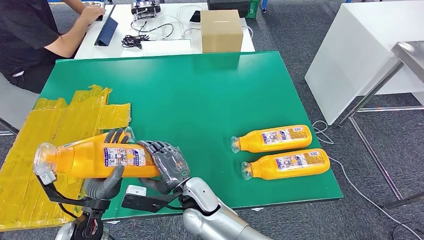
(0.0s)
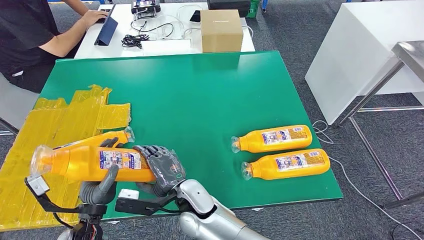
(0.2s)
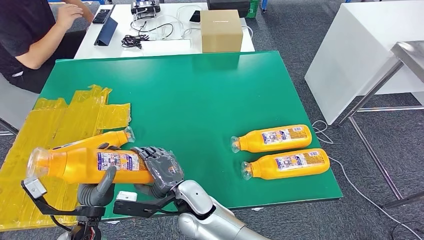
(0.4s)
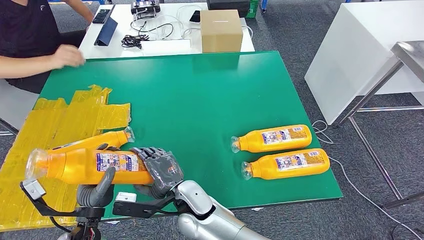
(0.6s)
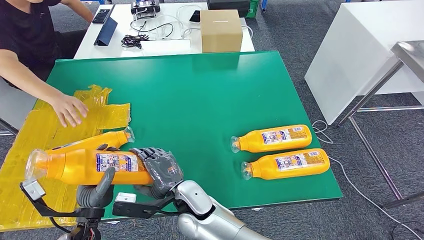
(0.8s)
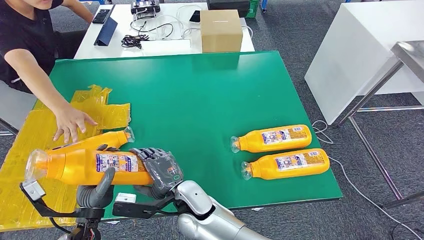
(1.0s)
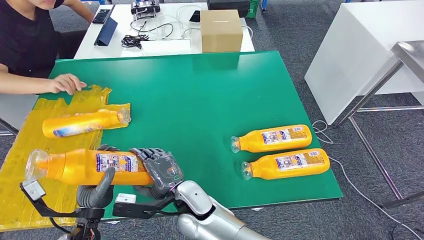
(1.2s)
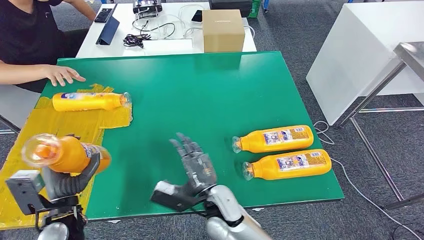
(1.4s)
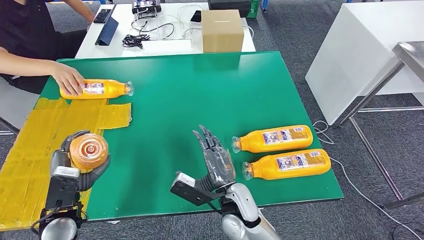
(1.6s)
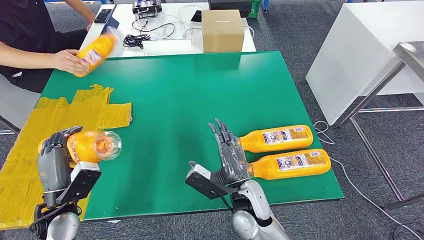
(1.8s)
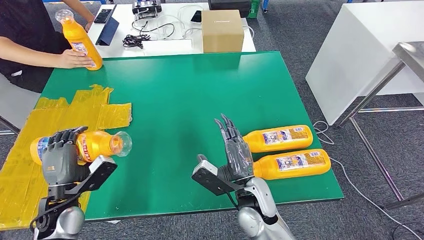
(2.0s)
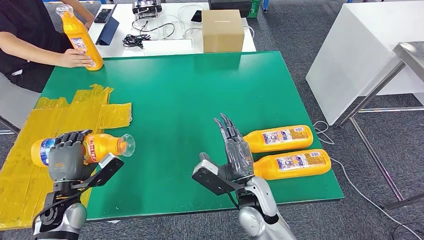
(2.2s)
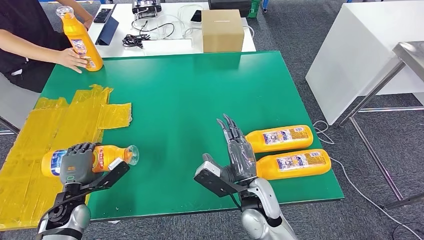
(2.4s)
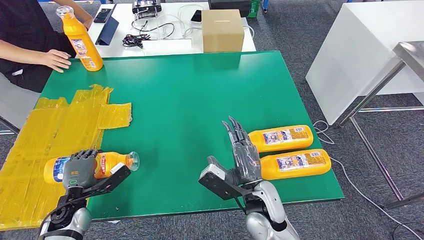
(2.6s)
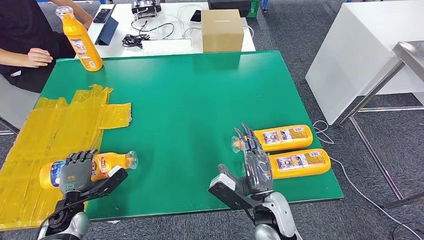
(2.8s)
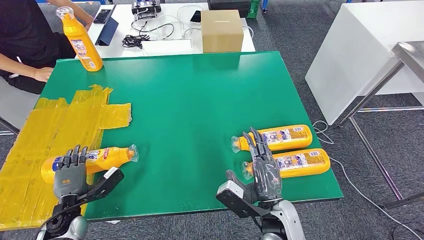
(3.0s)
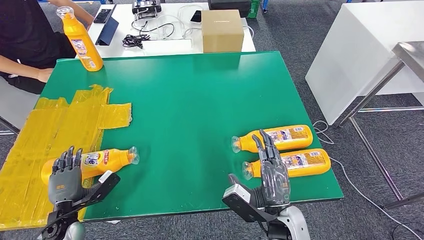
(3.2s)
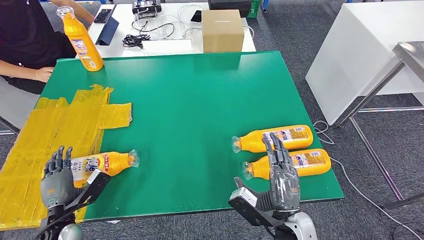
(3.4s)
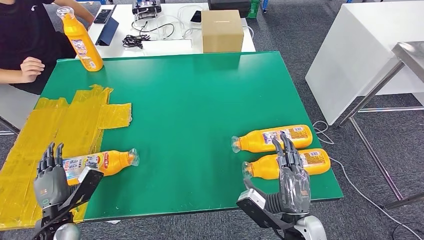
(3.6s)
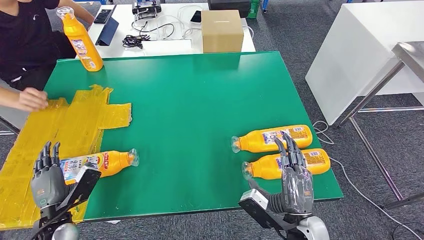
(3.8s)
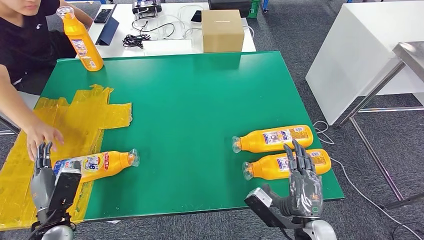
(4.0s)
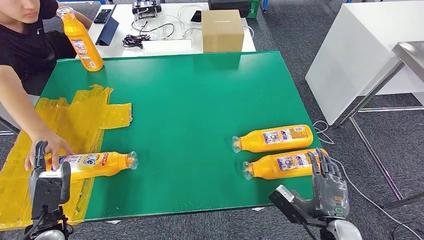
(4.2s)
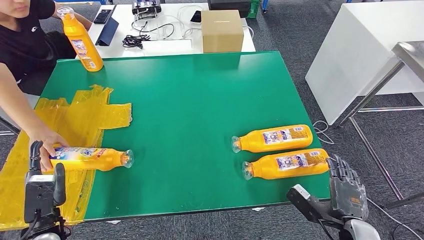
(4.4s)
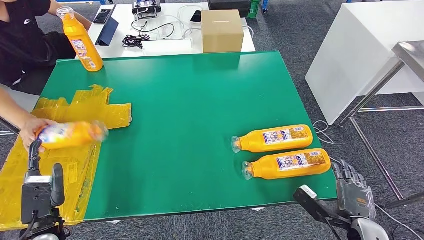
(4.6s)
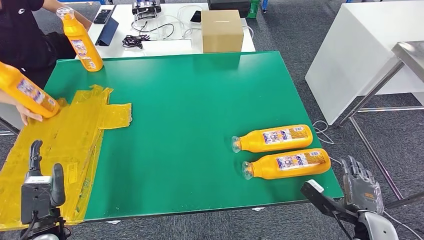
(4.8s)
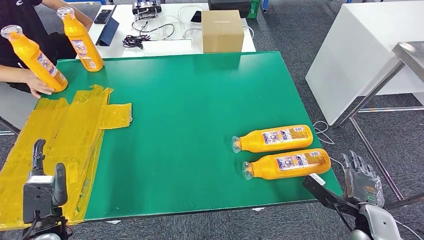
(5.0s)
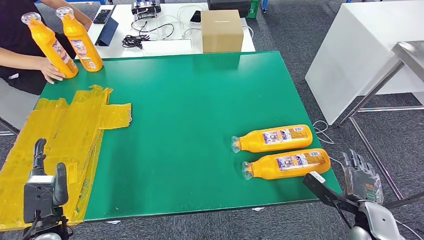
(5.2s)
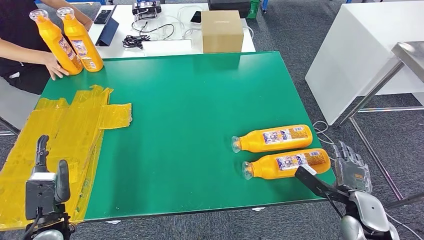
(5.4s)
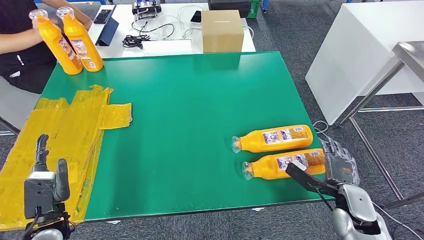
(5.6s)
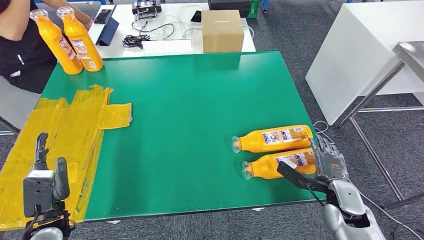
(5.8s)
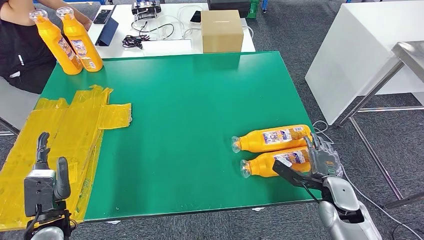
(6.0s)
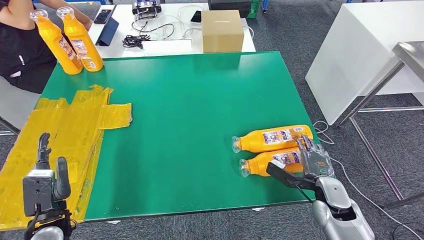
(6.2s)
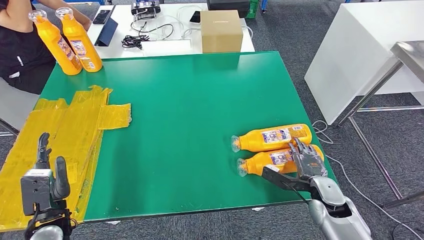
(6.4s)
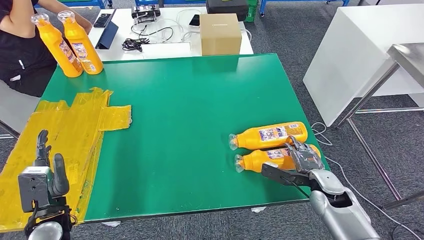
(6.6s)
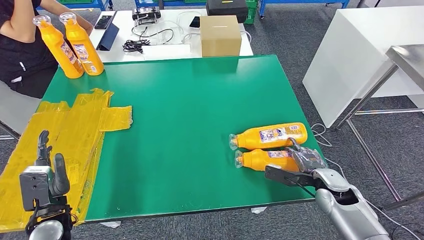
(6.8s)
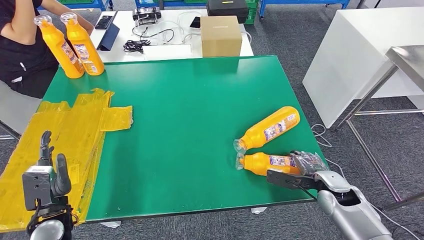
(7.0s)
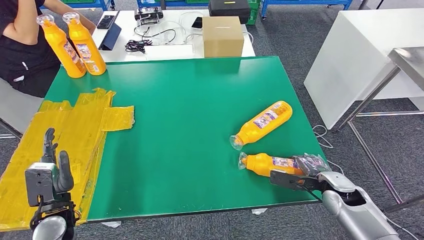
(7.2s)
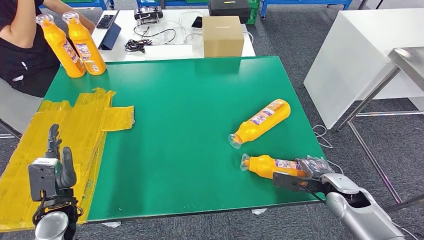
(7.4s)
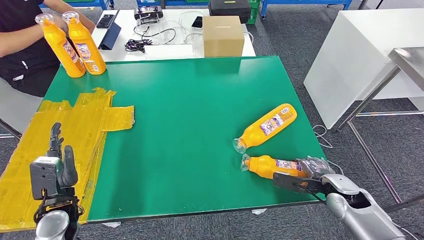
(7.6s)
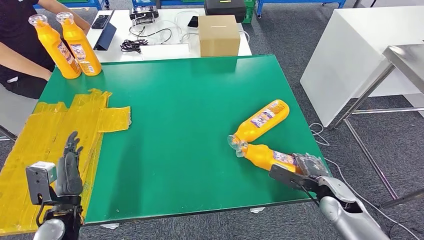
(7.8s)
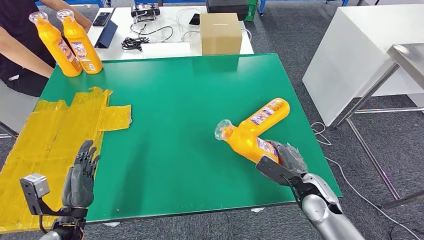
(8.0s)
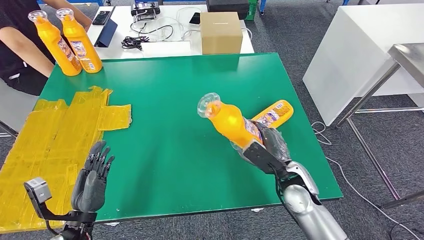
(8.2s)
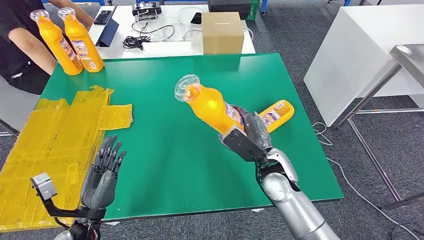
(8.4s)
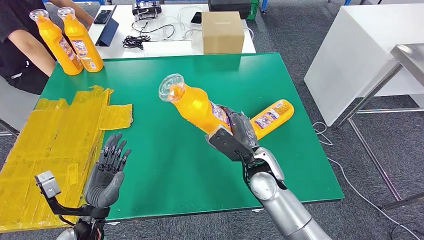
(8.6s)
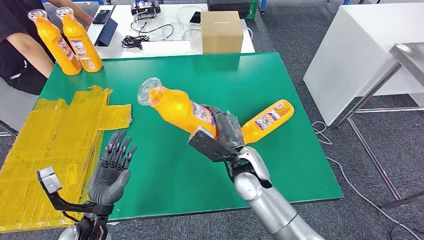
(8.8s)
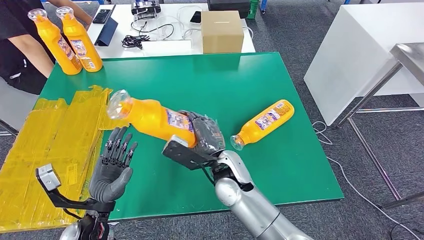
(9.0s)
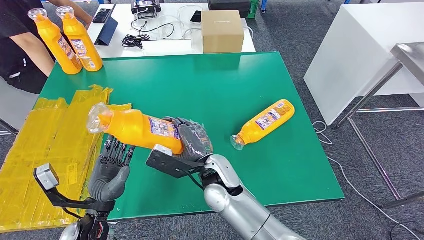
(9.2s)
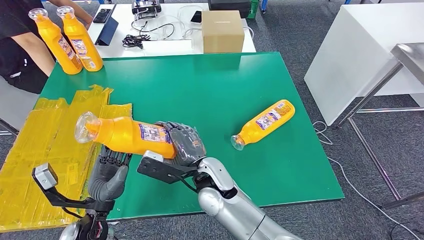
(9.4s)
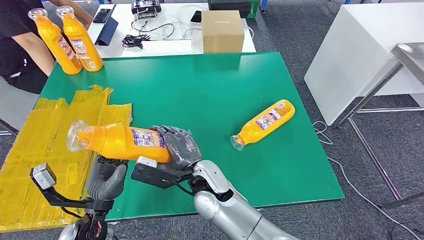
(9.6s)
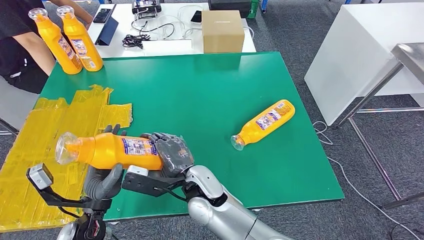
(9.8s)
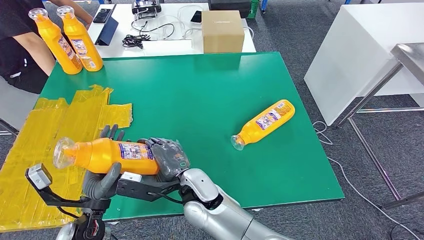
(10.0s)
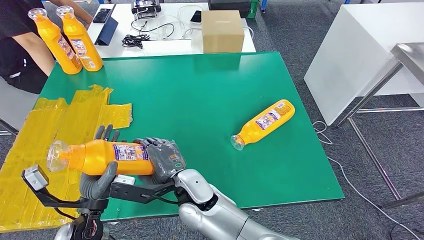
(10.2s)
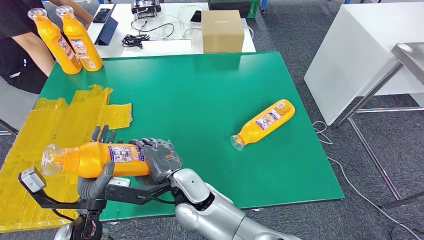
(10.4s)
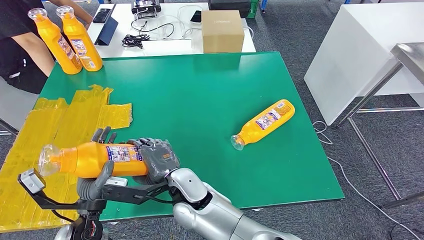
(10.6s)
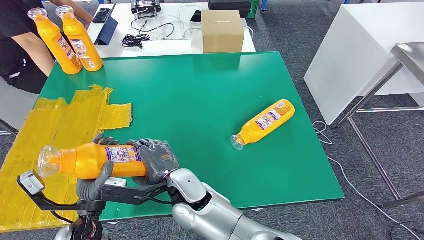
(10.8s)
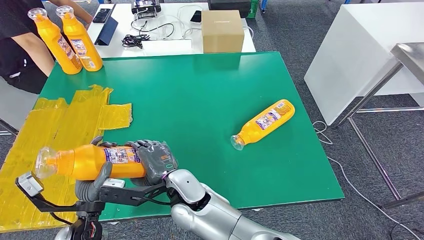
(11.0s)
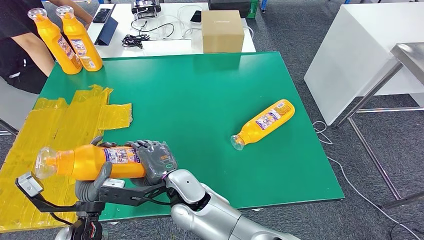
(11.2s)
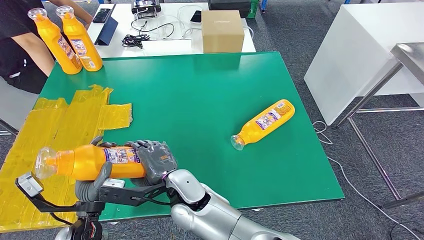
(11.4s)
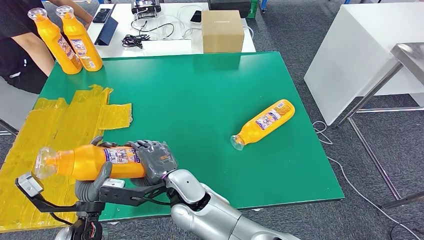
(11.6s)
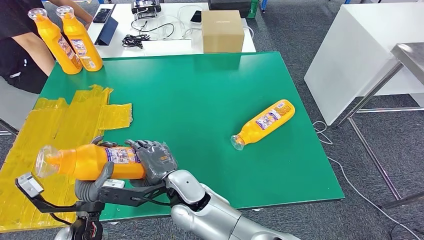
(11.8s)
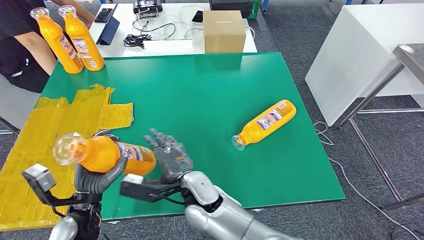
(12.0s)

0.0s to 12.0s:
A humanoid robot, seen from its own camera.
Step, 0.0s to 2.4s: Flip the bottle to face forward.
Step, 3.2s to 8.8s: Pick up the bottle from the table.
1.6s to 3.0s: The left hand heads downward, covering approximately 10 cm. The right hand is displaced to the right and backward by roughly 10 cm.
3.0s to 4.4s: The left hand travels upward and backward by roughly 10 cm. Meanwhile the right hand goes roughly 15 cm to the right.
4.4s to 6.0s: The right hand goes about 10 cm forward.
9.0s to 10.4s: The right hand shifts approximately 10 cm to the left.

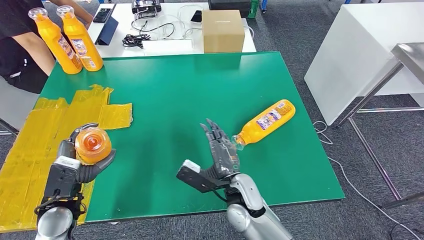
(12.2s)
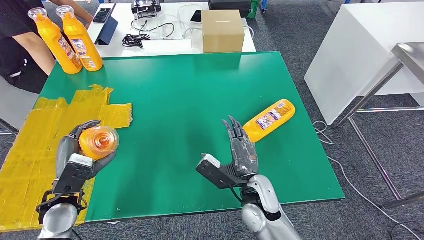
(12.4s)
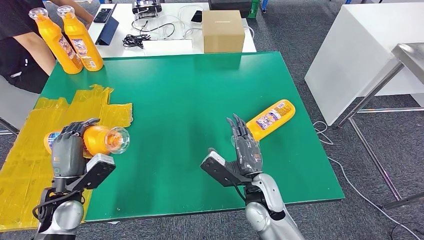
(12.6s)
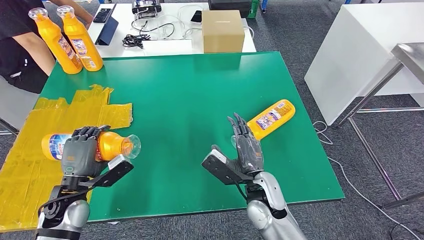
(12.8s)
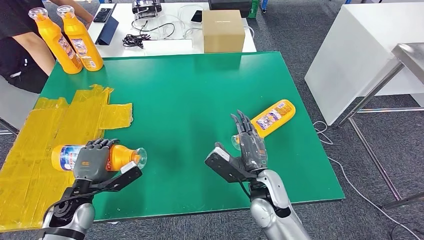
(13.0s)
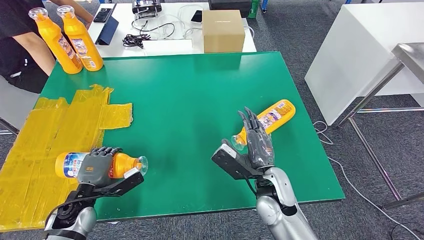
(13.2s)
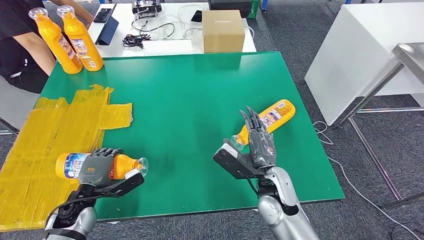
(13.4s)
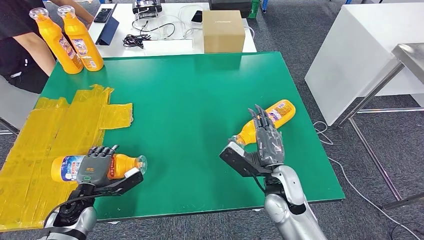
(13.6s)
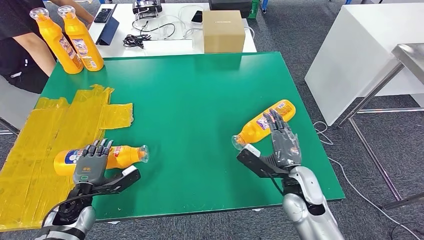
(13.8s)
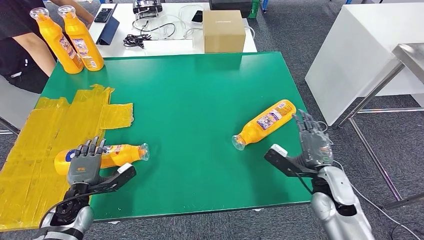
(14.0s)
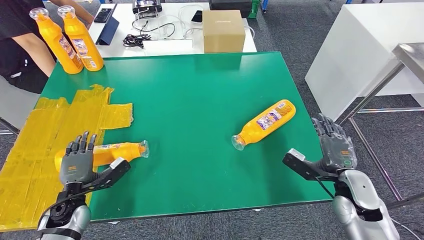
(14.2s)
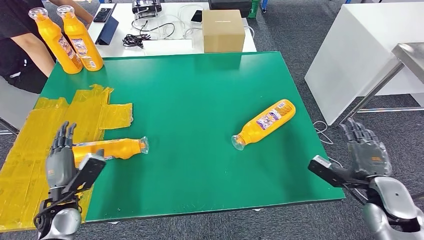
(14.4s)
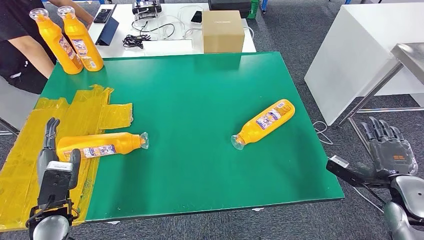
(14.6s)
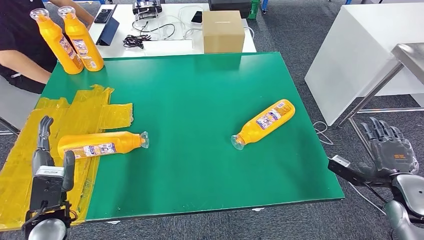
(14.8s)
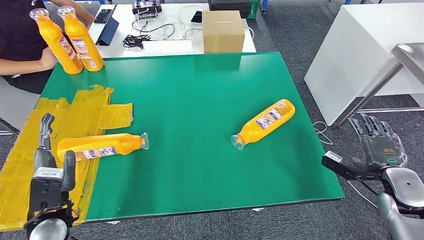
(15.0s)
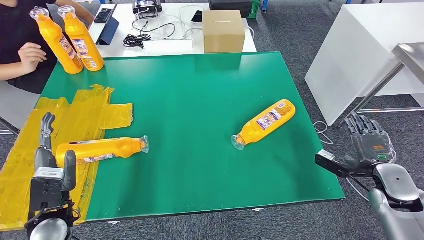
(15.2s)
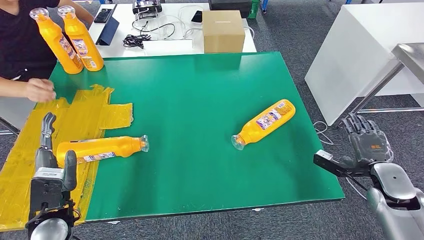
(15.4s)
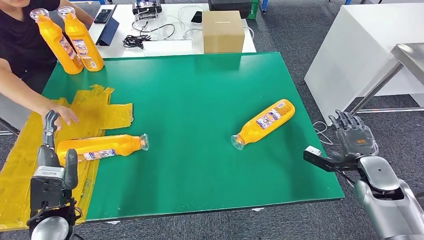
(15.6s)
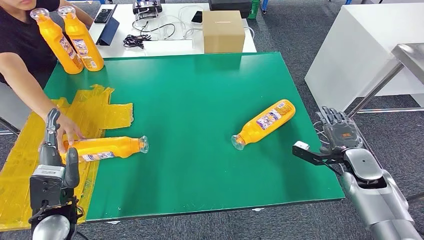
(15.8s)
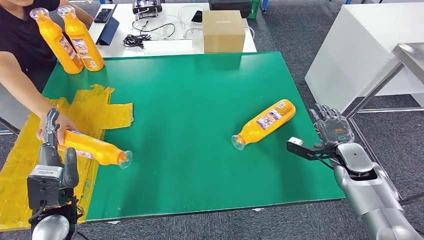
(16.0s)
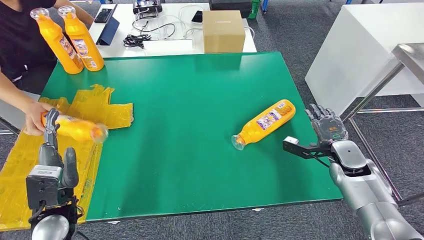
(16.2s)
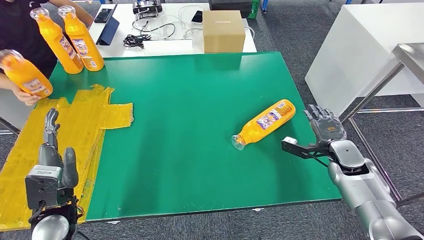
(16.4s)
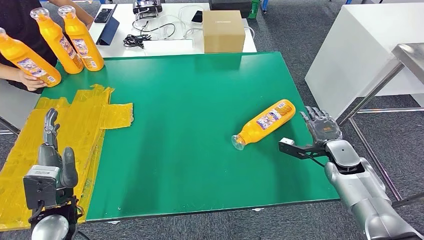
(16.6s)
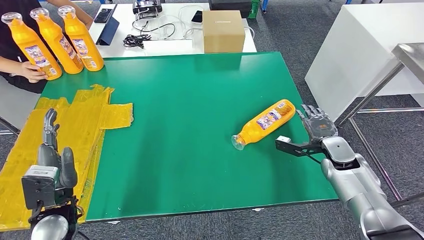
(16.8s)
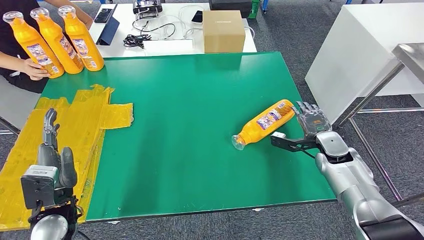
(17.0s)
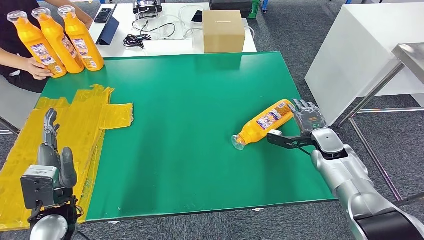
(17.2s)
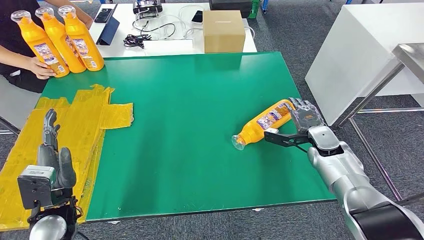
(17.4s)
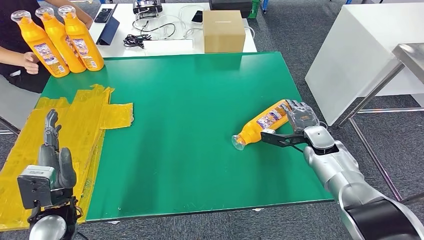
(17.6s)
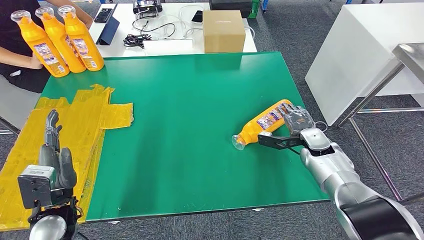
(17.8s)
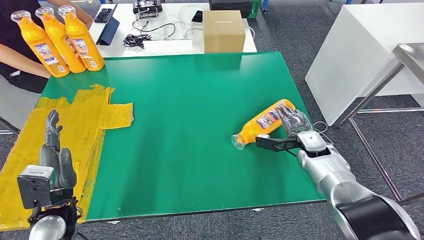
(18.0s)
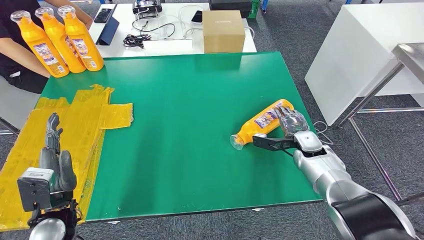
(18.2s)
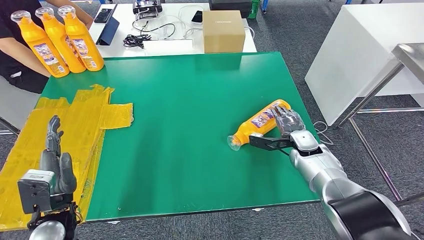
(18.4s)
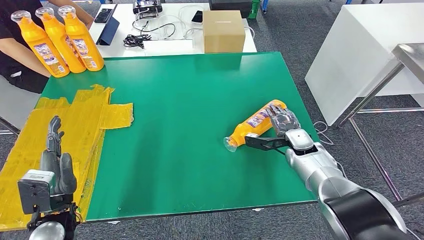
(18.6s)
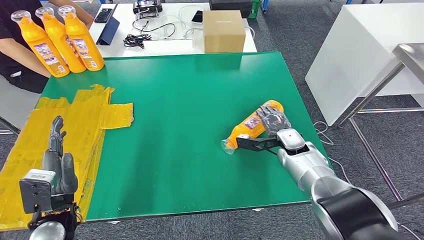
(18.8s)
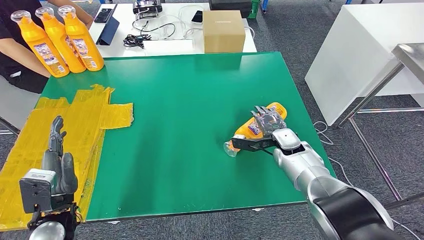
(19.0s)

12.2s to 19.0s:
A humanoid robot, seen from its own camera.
12.2s to 13.6s: The left hand heads downward, covering approximately 10 cm; the right hand shifts roughly 10 cm to the right.
15.0s to 16.2s: The right hand shifts about 10 cm forward and to the left.
16.2s to 17.6s: The right hand shifts about 10 cm forward and to the left.
17.6s to 19.0s: The right hand moves to the left, roughly 10 cm.
